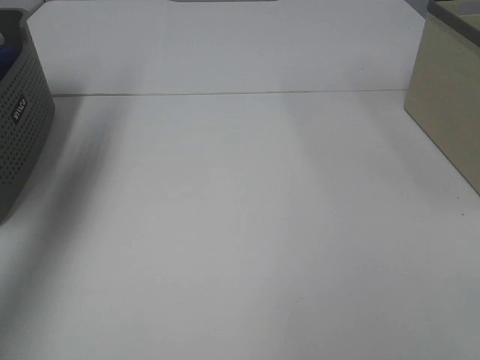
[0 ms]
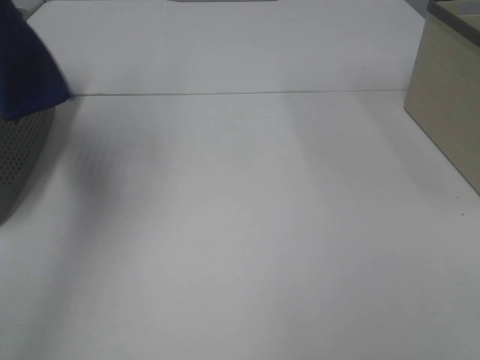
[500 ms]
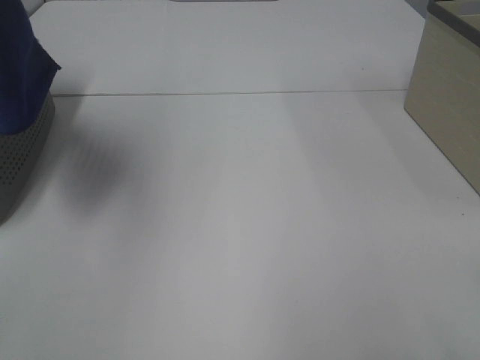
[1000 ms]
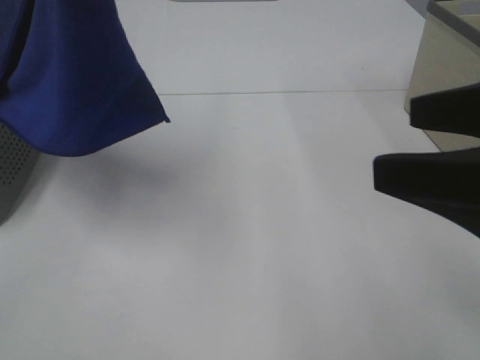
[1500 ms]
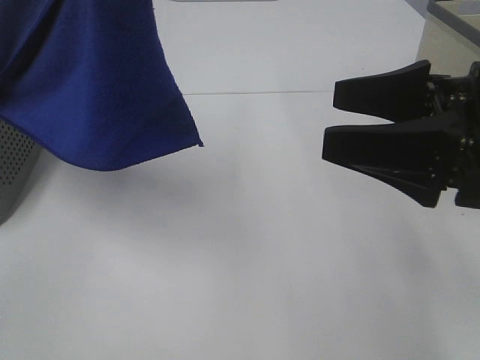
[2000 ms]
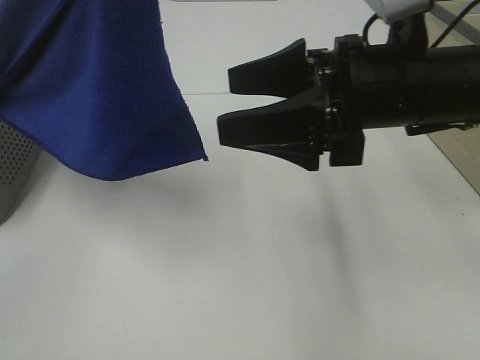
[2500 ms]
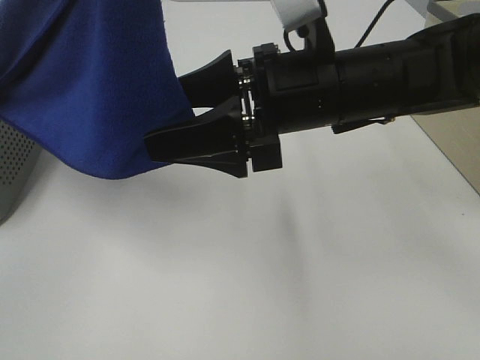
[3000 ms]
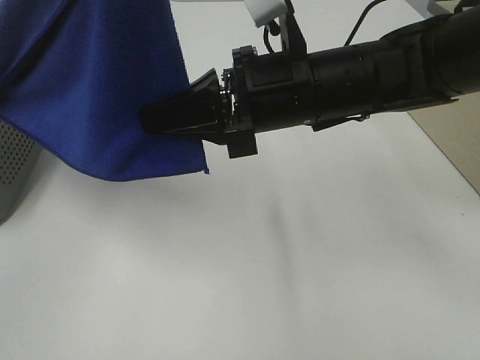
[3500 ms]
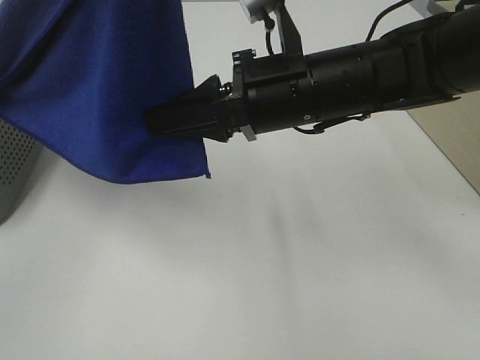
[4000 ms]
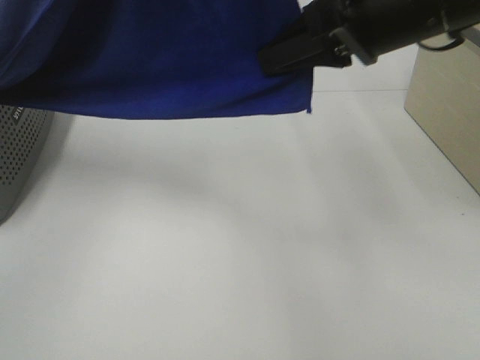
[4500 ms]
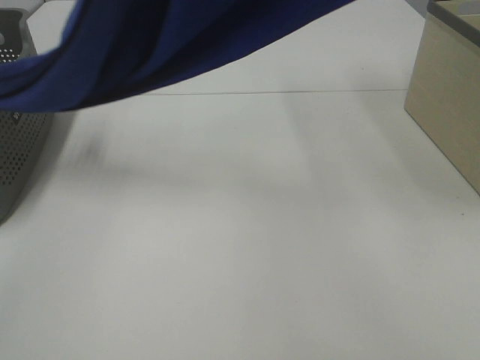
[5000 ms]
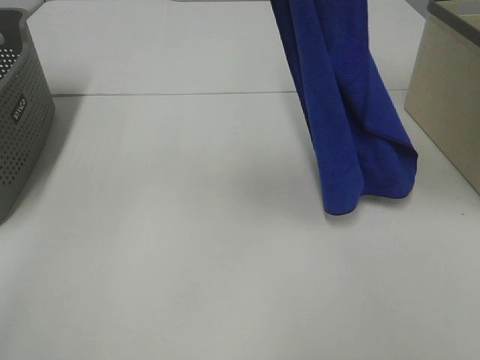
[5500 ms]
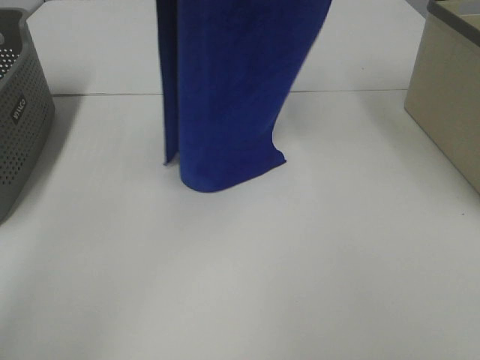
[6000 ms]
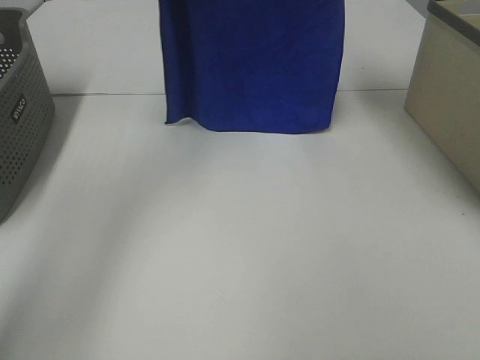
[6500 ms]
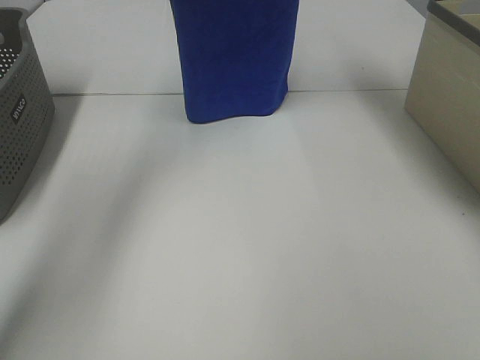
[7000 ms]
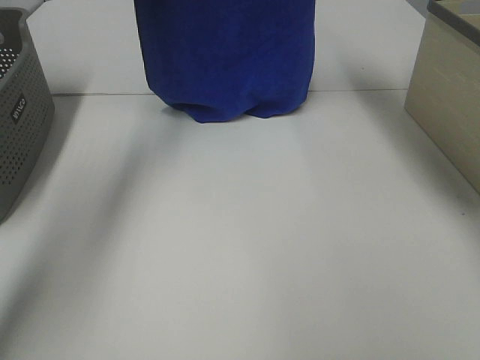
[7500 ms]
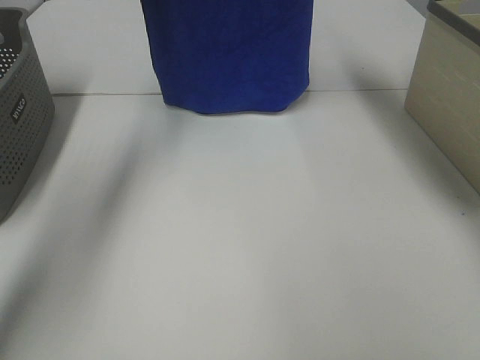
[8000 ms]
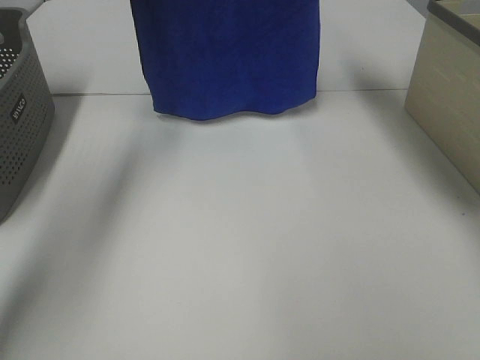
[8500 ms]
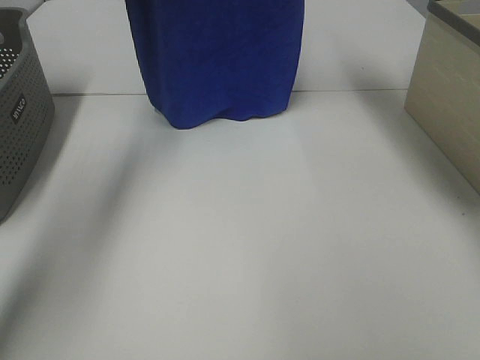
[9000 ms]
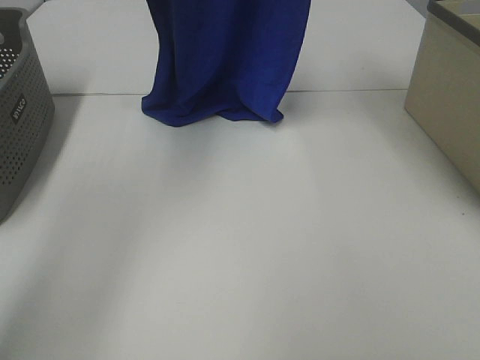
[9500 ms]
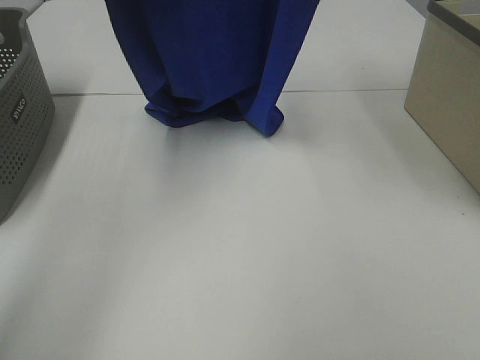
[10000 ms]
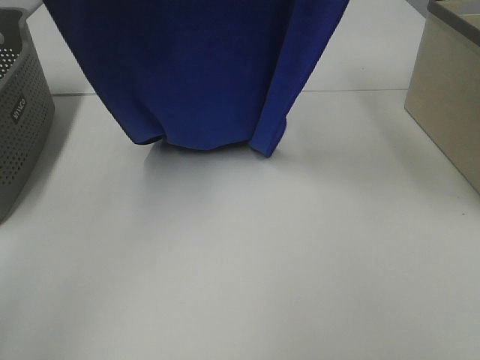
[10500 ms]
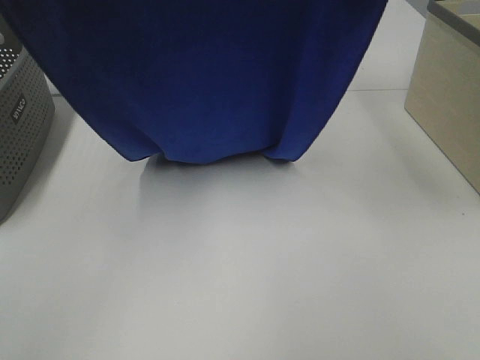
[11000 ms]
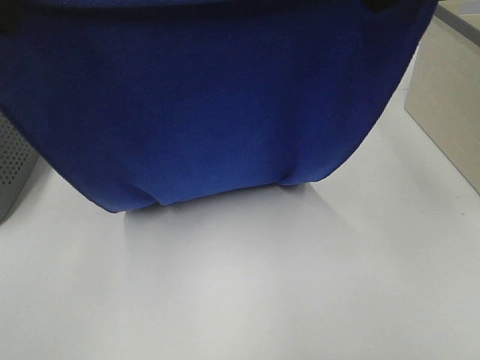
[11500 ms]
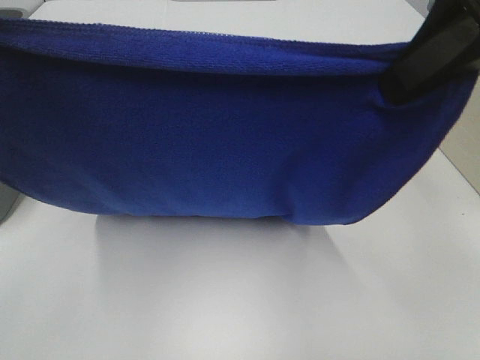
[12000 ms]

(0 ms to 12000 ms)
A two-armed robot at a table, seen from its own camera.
Task of the whole recording: Remove the towel and place it.
Step, 1000 ms - 3000 ms: Right hand: grab a corner of the blue towel and straighten it.
0 ms - 2000 ms: The right gripper travels forward by about 20 cm. The left gripper shifts approximately 30 cm to the right and backward.
2000 ms - 4000 ms: The right gripper is displaced to the left and forward by some 15 cm, and closes up.
4000 ms - 6000 ms: The right gripper is displaced upward, forward and to the right by some 30 cm. Meanwhile the left gripper moves forward, some 20 cm.
6000 ms - 8000 ms: The left gripper moves forward and to the left, approximately 15 cm. Meanwhile the right gripper goes about 10 cm forward.
8000 ms - 10000 ms: The two grippers go some 10 cm backward.
10000 ms - 12000 ms: The right gripper is displaced backward and downward by some 20 cm. Meanwhile the left gripper is displaced backward by approximately 25 cm.

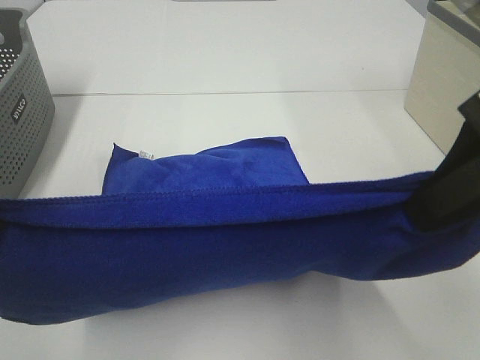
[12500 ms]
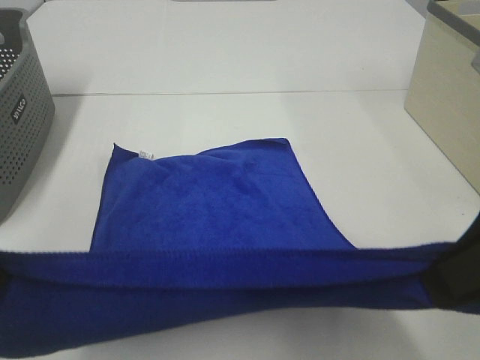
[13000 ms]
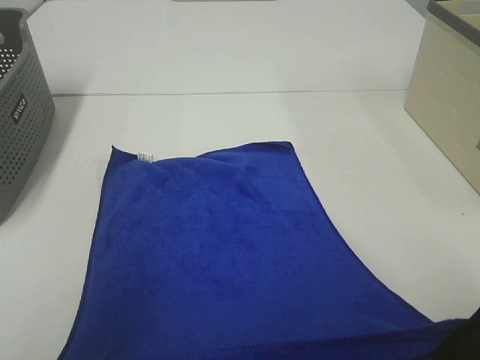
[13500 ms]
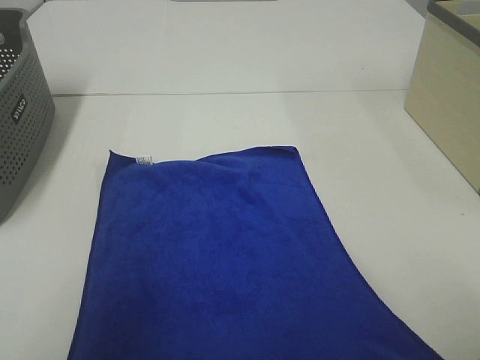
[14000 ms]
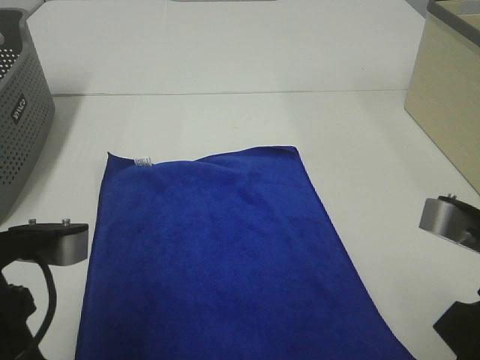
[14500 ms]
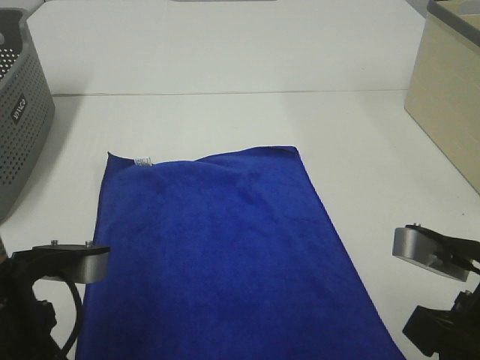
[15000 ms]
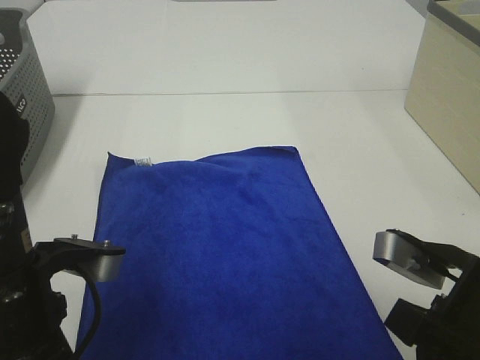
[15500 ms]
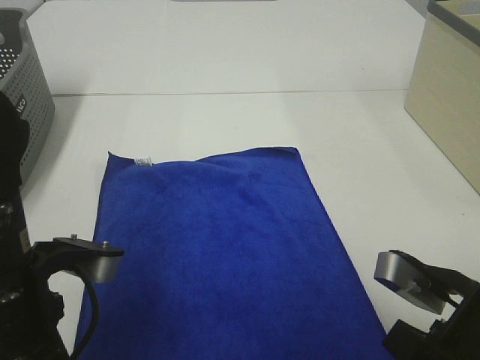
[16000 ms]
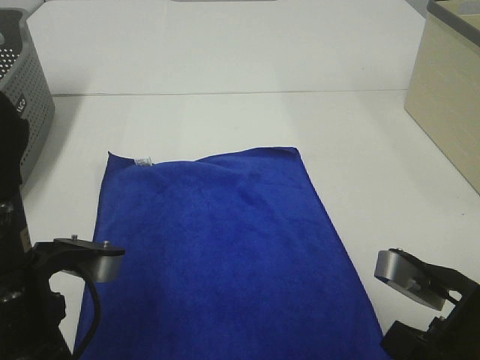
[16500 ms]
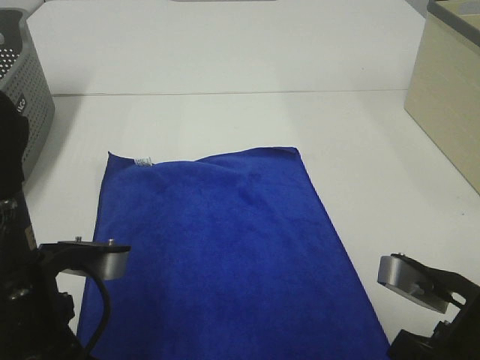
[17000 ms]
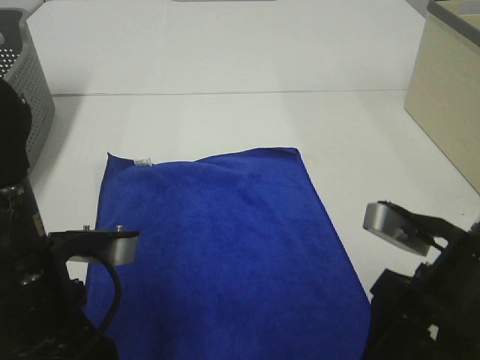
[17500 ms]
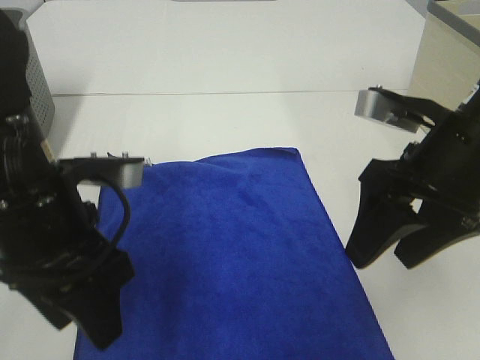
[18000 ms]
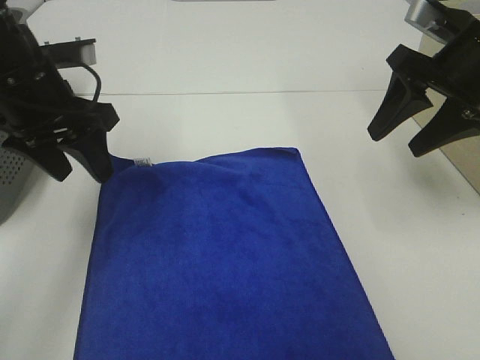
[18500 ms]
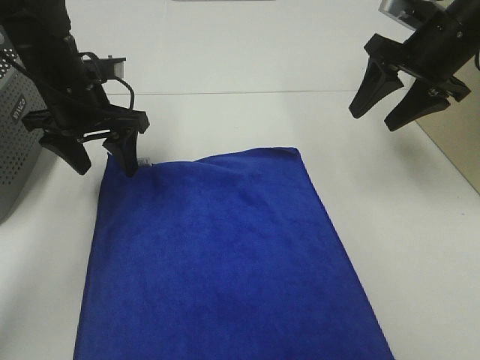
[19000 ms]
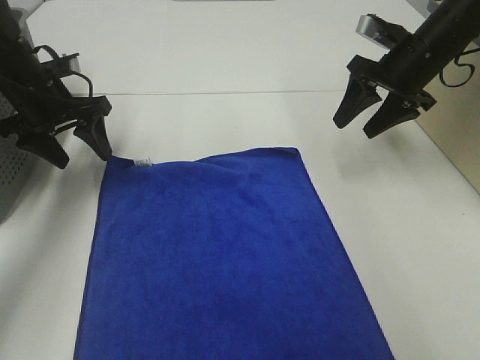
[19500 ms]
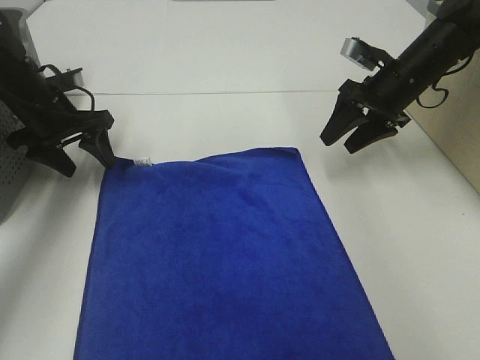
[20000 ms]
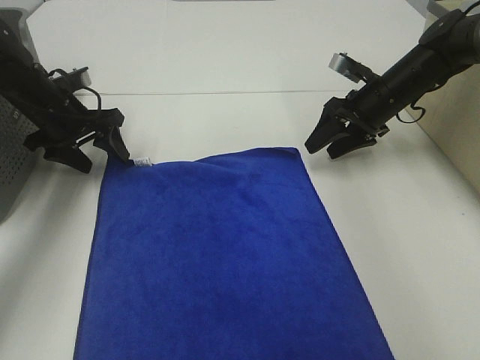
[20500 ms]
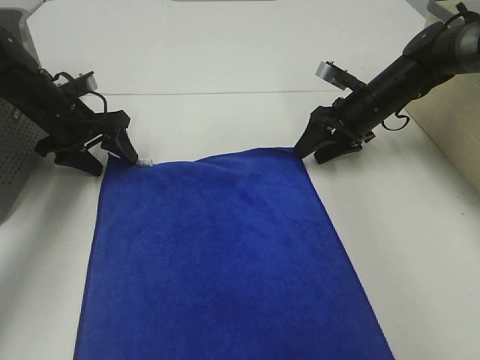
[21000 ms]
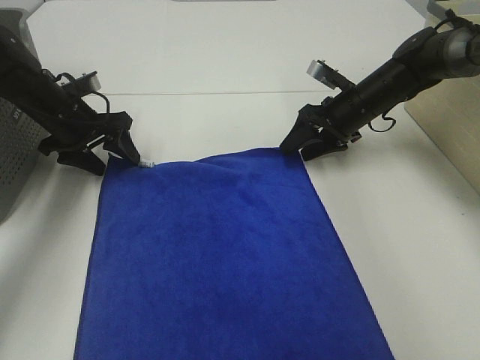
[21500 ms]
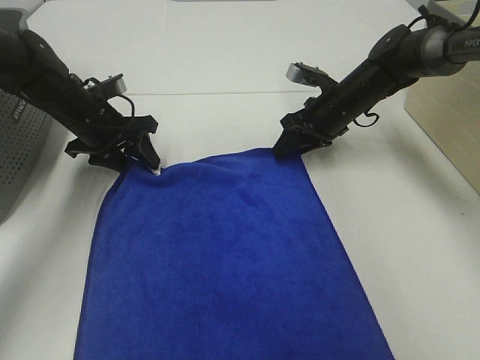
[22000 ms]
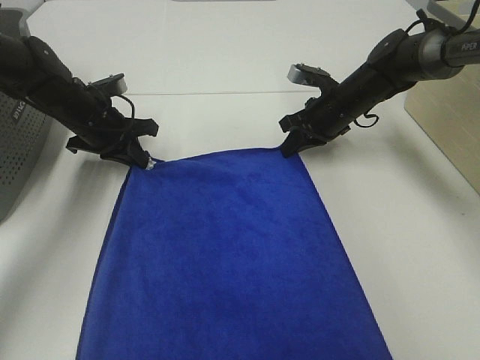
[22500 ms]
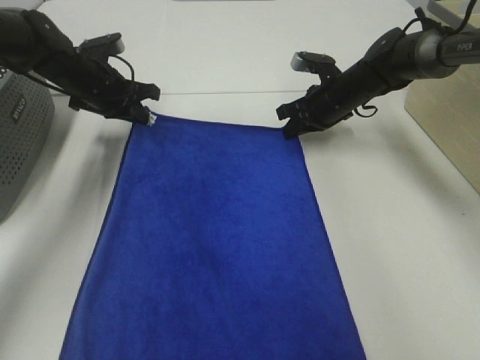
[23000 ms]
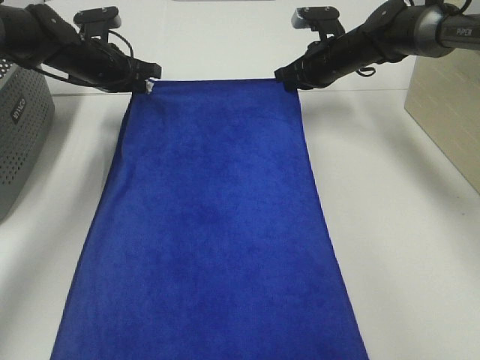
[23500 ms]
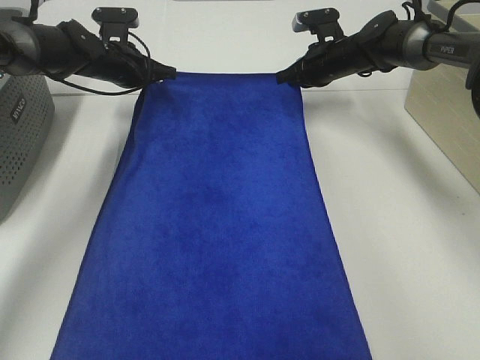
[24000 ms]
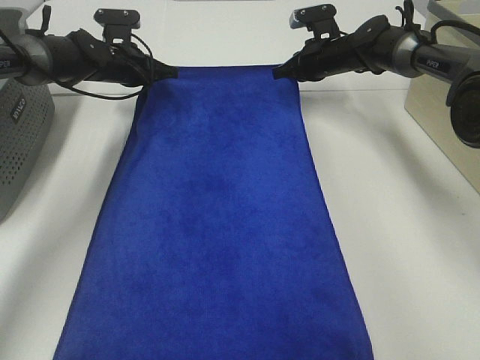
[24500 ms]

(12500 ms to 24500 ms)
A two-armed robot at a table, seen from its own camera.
Task of the whole recording: Remove the towel and place it.
Step, 12500 ms - 19500 ms: Left hand:adjust the blue towel.
Step, 12500 ms - 19500 ms: Right hand:adjust the blue towel.
12500 ms - 14500 ms: The right gripper travels downward by about 10 cm; the left gripper shifts about 15 cm downward and to the right.
14500 ms - 16500 ms: The right gripper travels downward by approximately 5 cm.
16500 ms - 18500 ms: The left gripper moves forward, roughly 20 cm, and opens its fingers. The right gripper heads forward and upward, covering approximately 25 cm, and opens up.
18500 ms - 20500 ms: The right gripper moves downward and forward, some 20 cm; the left gripper heads forward, downward and to the left, covering roughly 20 cm.
20500 ms - 22500 ms: The left gripper closes up; the right gripper is displaced to the left by about 5 cm, and closes.
22500 ms - 24500 ms: Both grippers travel together forward, approximately 10 cm.

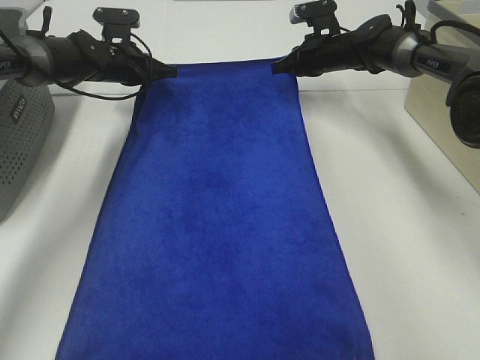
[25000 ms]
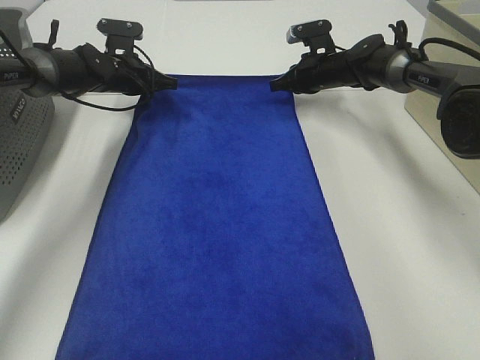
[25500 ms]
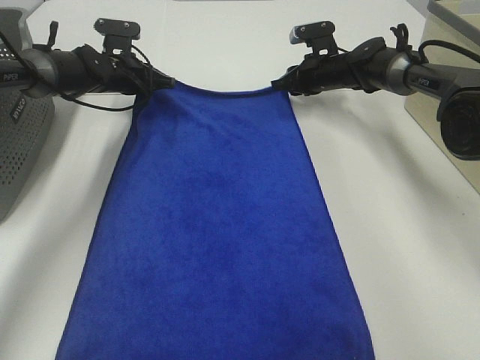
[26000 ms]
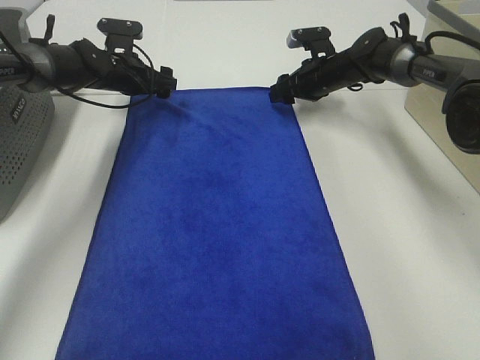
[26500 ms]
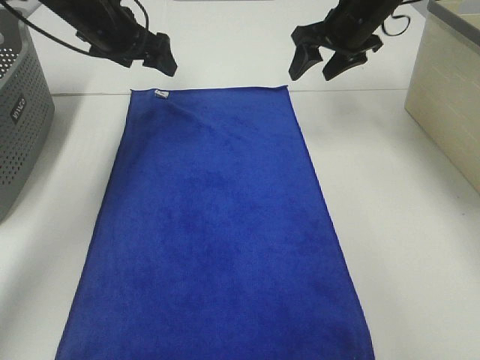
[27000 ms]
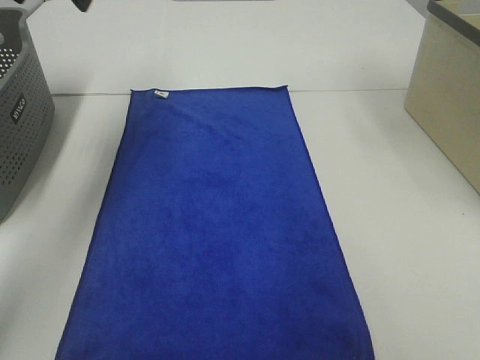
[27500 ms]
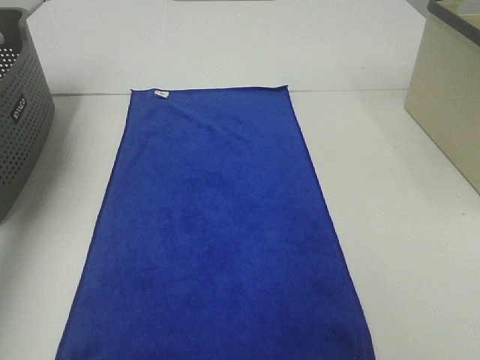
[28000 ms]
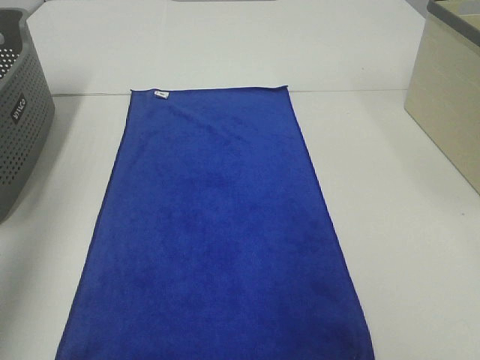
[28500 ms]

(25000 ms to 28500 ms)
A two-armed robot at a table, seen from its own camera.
Task of the whole recording: Remove the towel and place it.
25000 ms - 27000 ms: Both grippers move upward and backward, some 15 cm. The right gripper opens up. Meanwhile the left gripper opens up.
27000 ms - 28500 ms: The right gripper moves backward and upward, about 40 cm; the left gripper moves backward, upward and to the left, some 40 cm.
